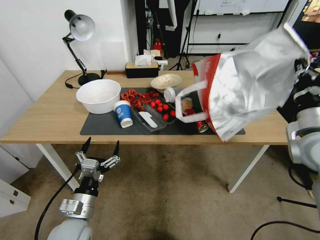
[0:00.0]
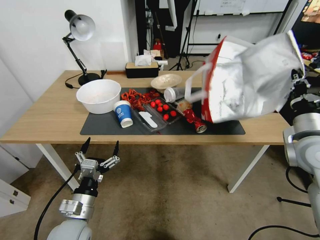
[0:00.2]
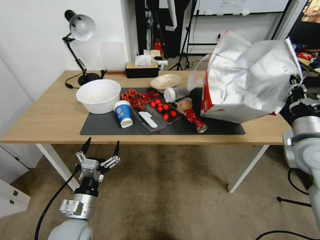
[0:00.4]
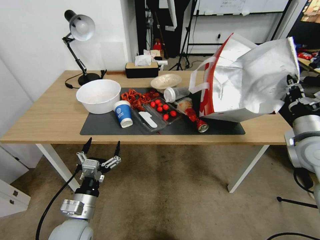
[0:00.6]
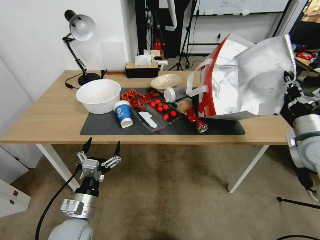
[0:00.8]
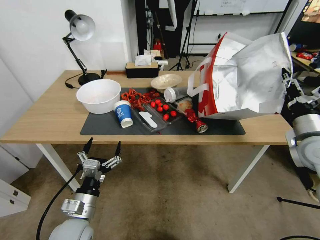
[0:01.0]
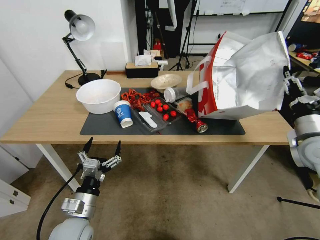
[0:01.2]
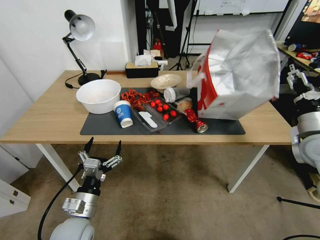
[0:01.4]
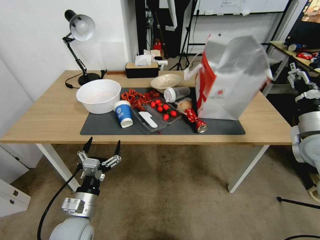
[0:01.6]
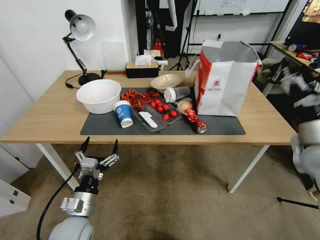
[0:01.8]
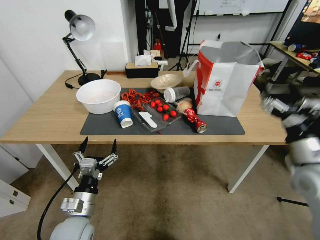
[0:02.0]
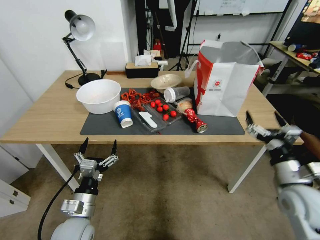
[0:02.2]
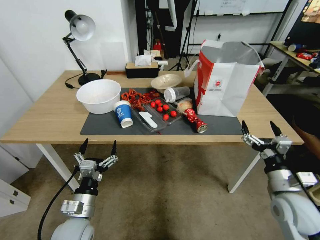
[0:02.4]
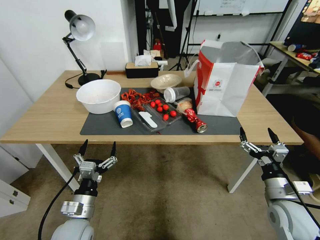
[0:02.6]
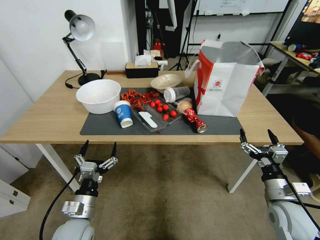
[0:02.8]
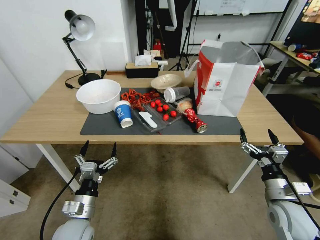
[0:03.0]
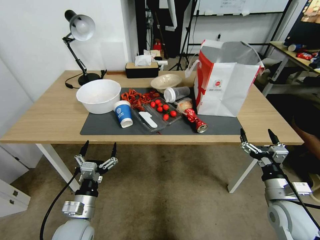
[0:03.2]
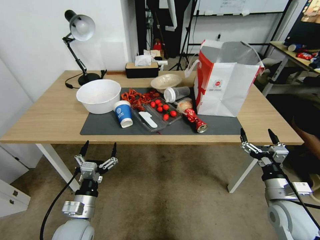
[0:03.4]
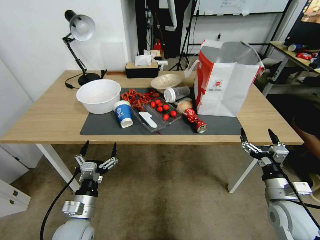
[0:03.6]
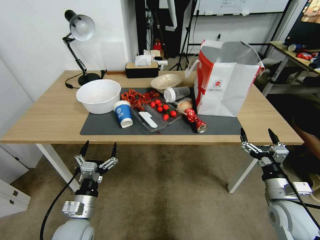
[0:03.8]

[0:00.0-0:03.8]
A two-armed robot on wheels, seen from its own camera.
Task of the whole recording: Pick up the food delivery bag from the floor and place it on the table.
0:00.0 to 0:01.2: The right gripper heads to the right, covering roughly 5 cm, and opens its fingers.
0:01.2 to 0:02.6: The right gripper heads downward, backward and to the left, covering roughly 20 cm, and opens its fingers.
0:02.6 to 0:03.8: Both grippers stay put.
